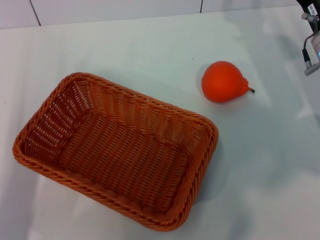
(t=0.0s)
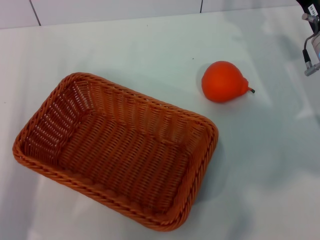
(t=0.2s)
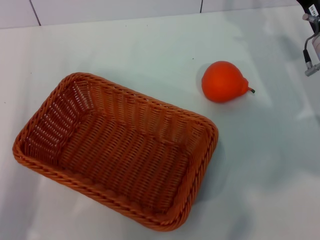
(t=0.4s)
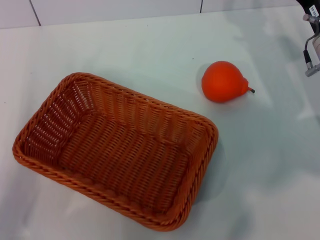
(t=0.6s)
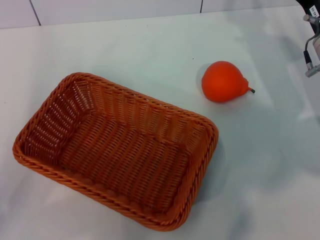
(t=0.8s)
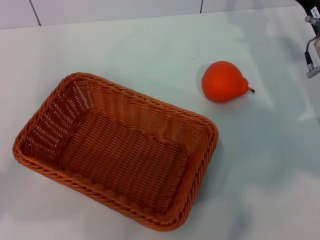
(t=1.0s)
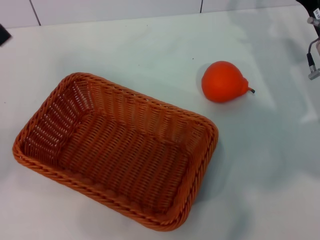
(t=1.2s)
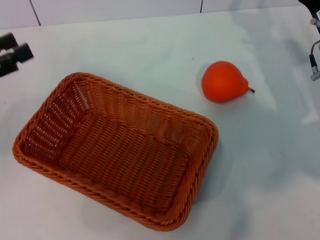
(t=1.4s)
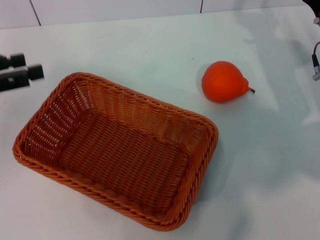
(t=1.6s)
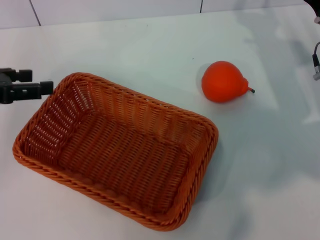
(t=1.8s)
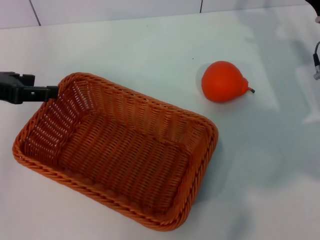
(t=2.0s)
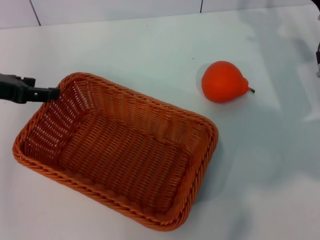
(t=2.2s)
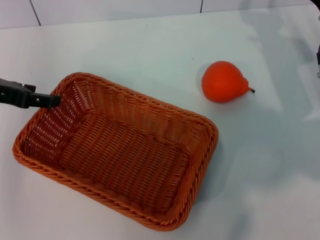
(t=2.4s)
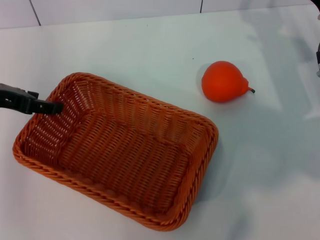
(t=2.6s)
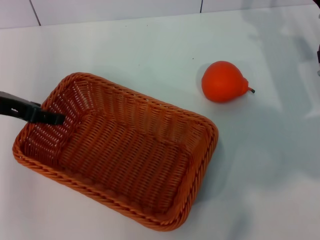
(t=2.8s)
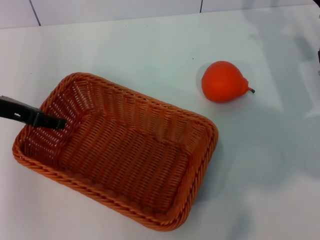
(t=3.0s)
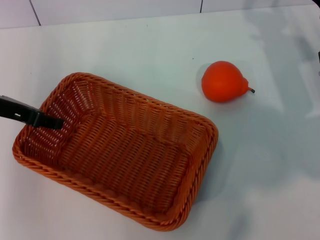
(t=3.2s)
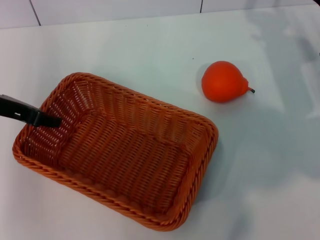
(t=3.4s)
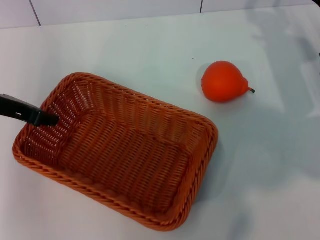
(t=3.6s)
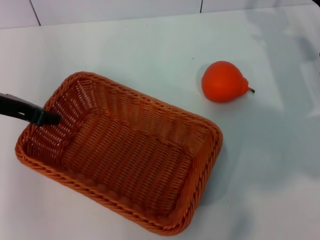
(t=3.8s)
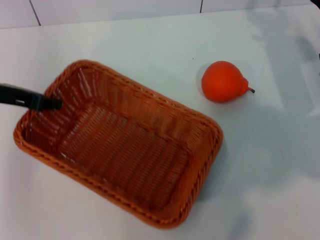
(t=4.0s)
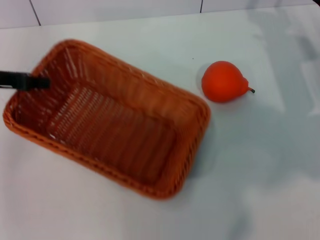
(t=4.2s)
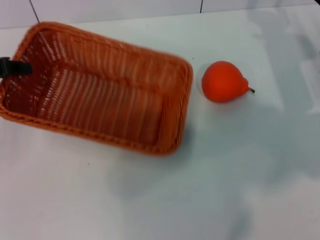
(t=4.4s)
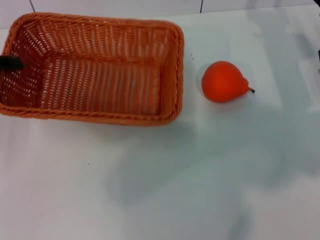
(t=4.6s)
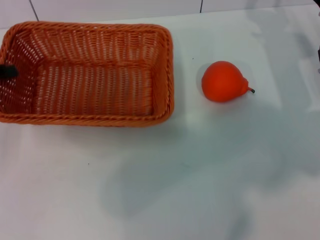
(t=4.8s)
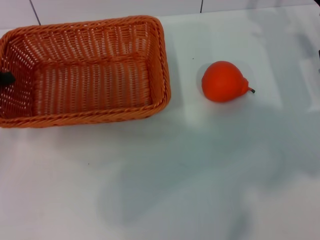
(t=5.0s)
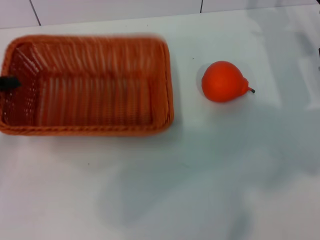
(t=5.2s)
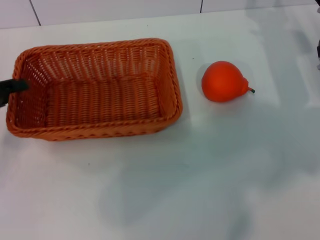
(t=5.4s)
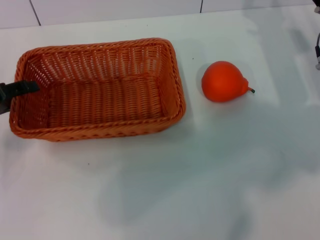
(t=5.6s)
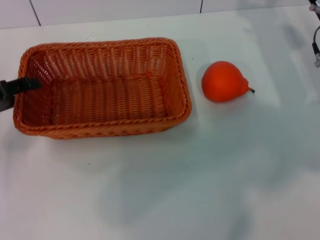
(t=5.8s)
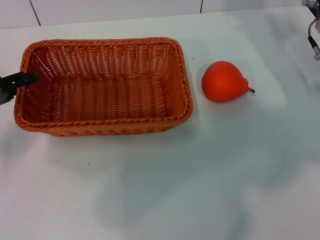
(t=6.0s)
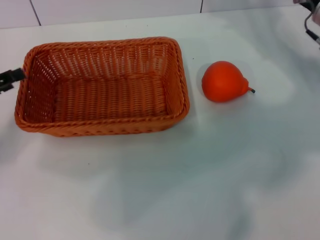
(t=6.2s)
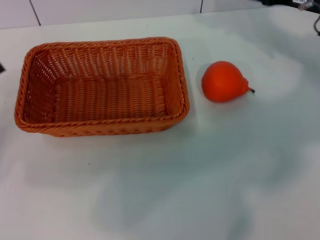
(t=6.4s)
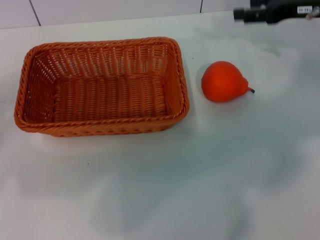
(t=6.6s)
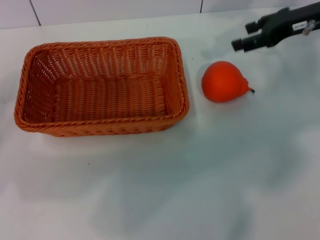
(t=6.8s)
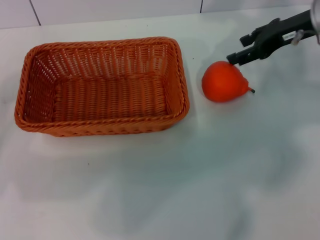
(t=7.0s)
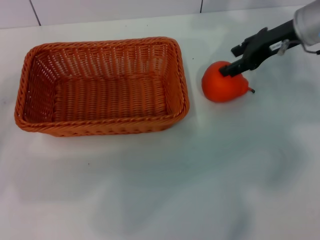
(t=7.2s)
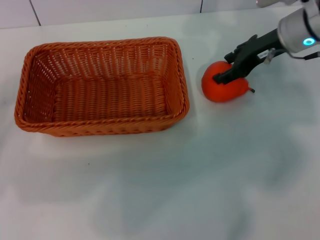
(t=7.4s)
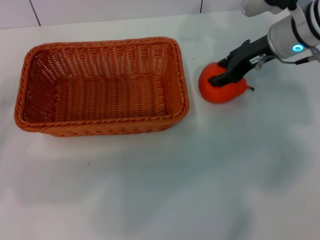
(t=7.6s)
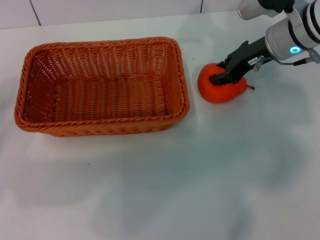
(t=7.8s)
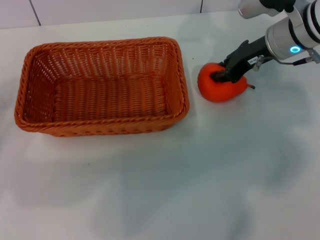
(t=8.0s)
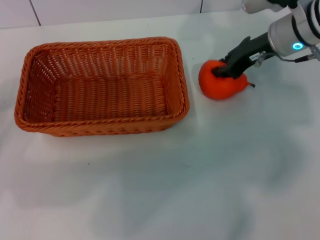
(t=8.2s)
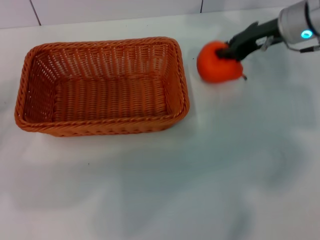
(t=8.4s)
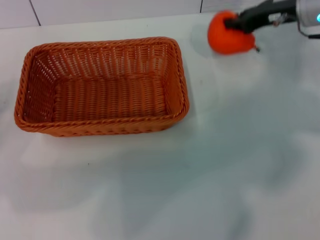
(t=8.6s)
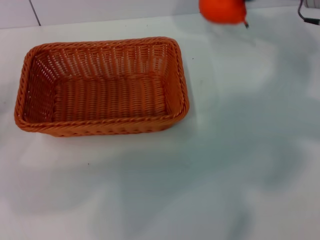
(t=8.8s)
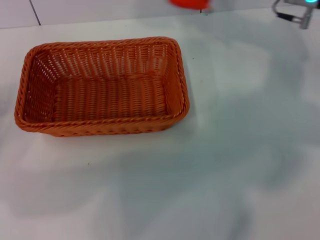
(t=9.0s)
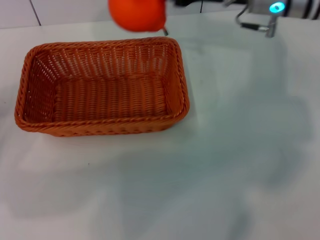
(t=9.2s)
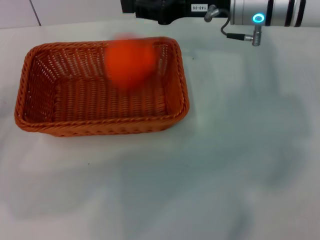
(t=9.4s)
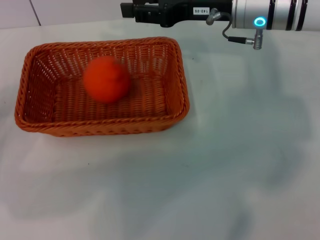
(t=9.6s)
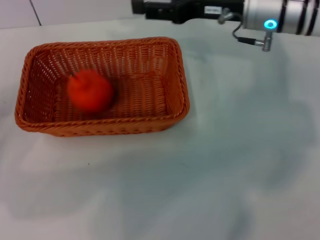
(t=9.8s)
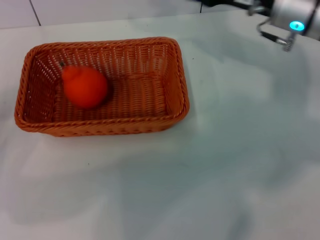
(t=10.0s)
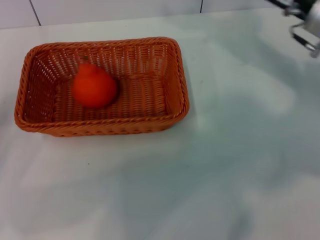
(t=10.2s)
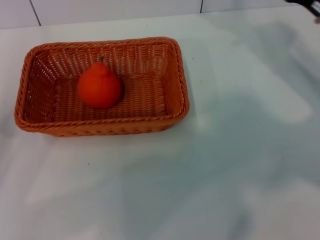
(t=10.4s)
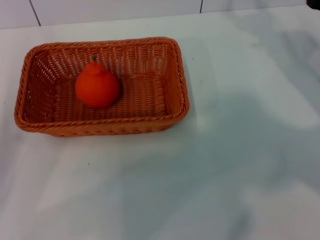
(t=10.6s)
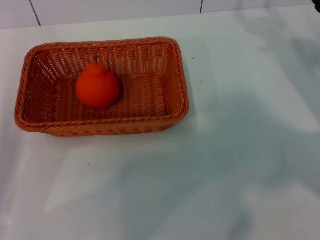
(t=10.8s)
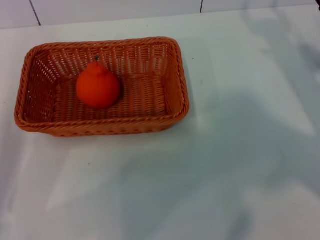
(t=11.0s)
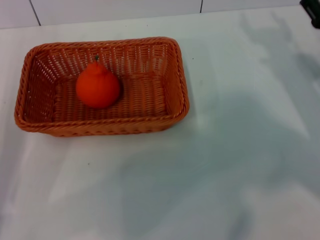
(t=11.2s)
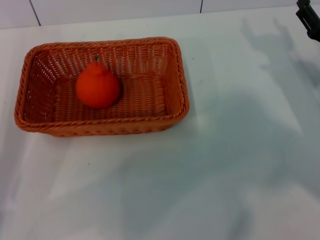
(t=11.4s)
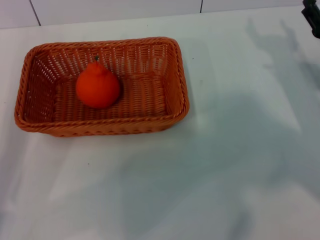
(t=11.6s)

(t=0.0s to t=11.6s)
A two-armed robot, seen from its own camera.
Task of the whole recording: the left gripper pick up the yellow basket and place it horizontally in the middle of the table, the right gripper pick up the orange and place it into the yellow basket.
Step, t=0.0s - t=3.8s: Pick up the light basket with the left gripper.
Step, t=4.2s - t=6.2s: Place the light basket in the center of view with the left gripper.
Step, t=6.4s - t=8.4s: Pick up the orange with the right gripper.
Step, t=8.6s - t=9.6s: Place the orange into the light basket with the right gripper.
t=0.0s - t=1.4s: The left gripper is displaced upward, to the left and forward by about 15 cm.
t=1.4s - t=2.8s: The left gripper shifts roughly 10 cm to the right and forward.
t=2.8s - t=4.4s: The left gripper closes up.
t=4.4s - t=5.8s: The left gripper heads downward, covering about 5 cm, and opens.
t=5.8s - t=7.2s: The right gripper is displaced upward by some 10 cm.
t=7.2s - t=8.8s: The right gripper closes its fingers.
t=8.8s - t=10.2s: The right gripper heads backward, covering some 5 cm, reaches about 10 cm to the left, then returns, and opens its fingers.
t=10.2s - t=11.6s: The left gripper shifts roughly 5 cm to the right; the right gripper travels downward and backward by about 10 cm.
